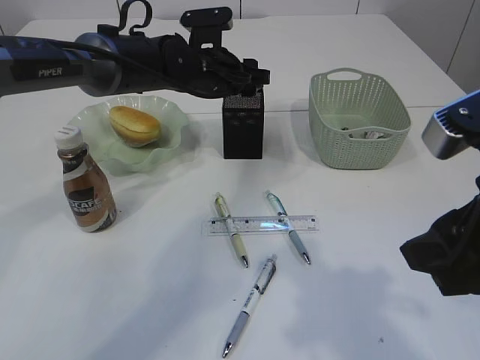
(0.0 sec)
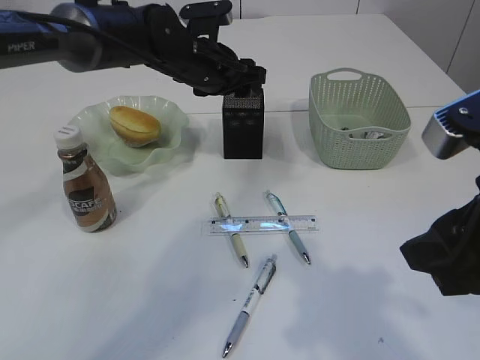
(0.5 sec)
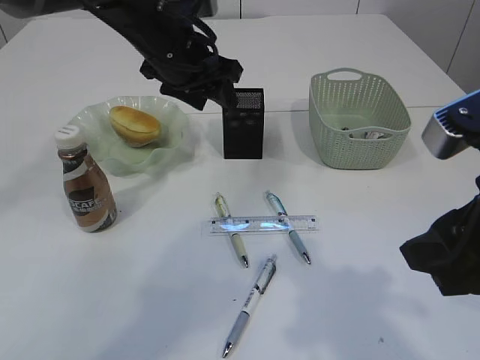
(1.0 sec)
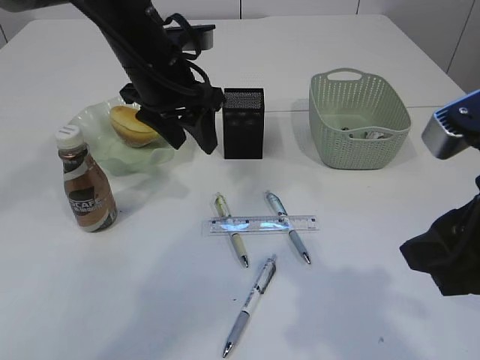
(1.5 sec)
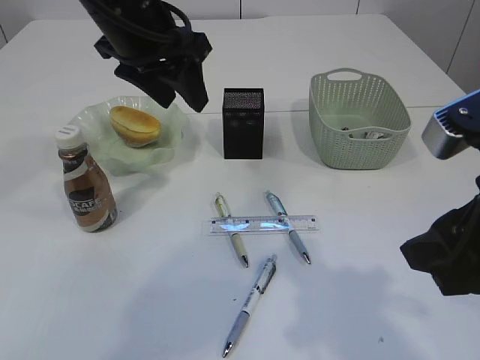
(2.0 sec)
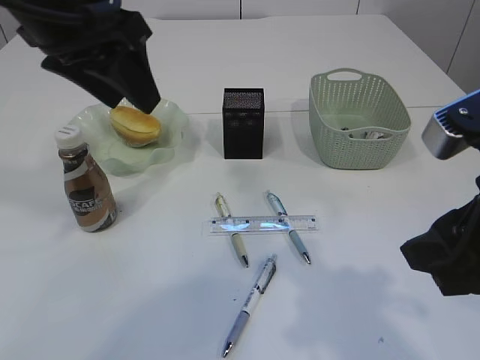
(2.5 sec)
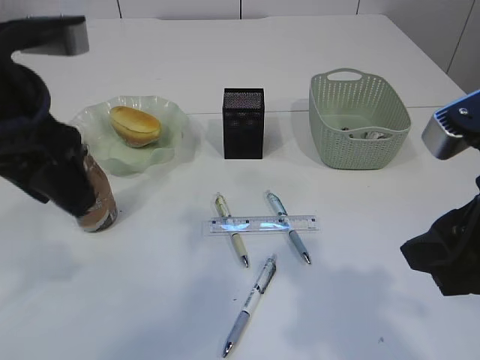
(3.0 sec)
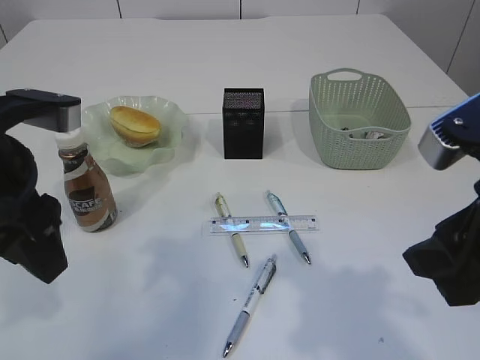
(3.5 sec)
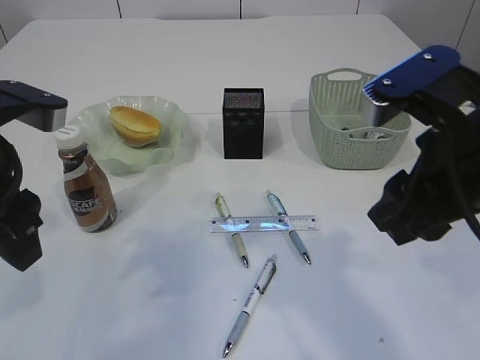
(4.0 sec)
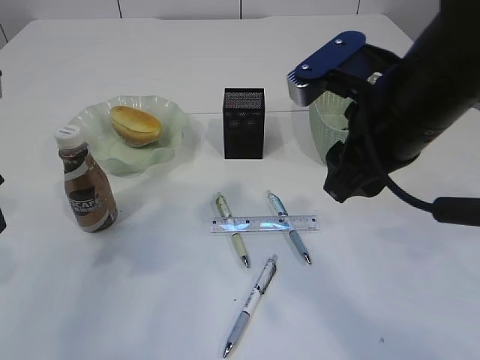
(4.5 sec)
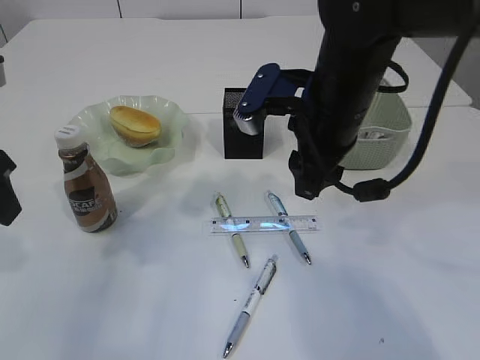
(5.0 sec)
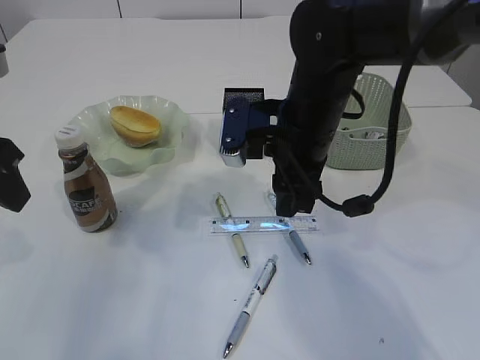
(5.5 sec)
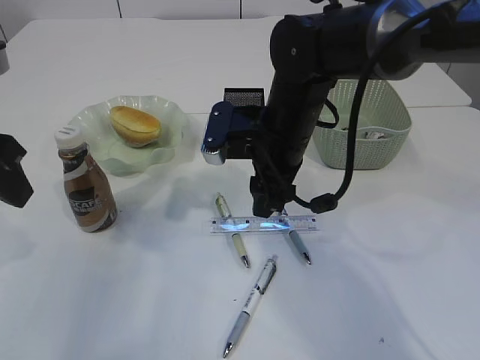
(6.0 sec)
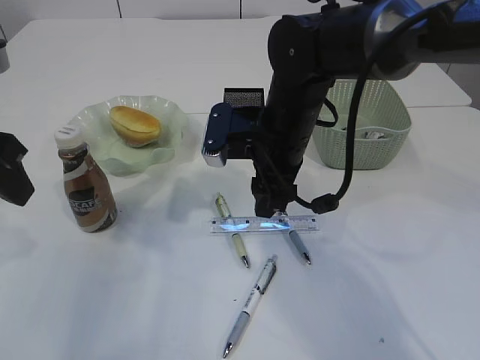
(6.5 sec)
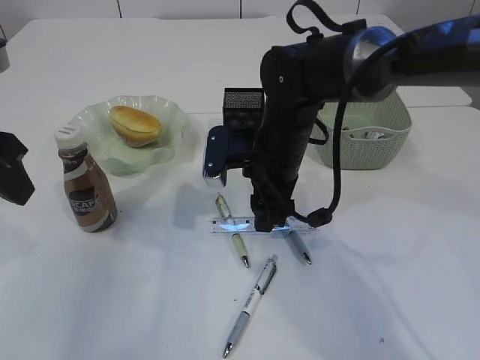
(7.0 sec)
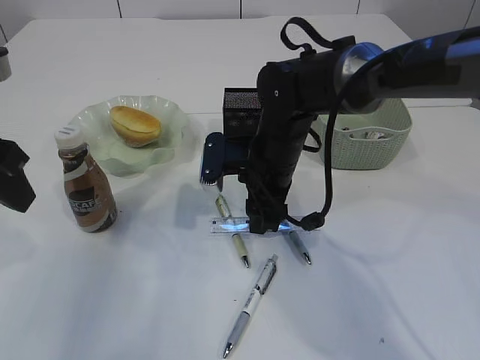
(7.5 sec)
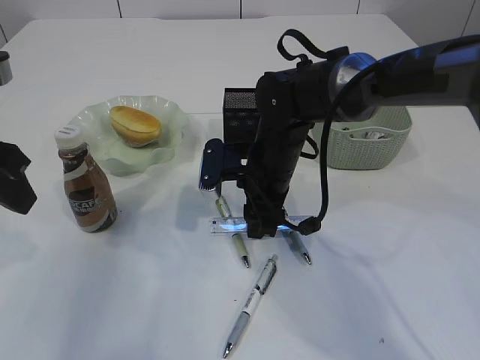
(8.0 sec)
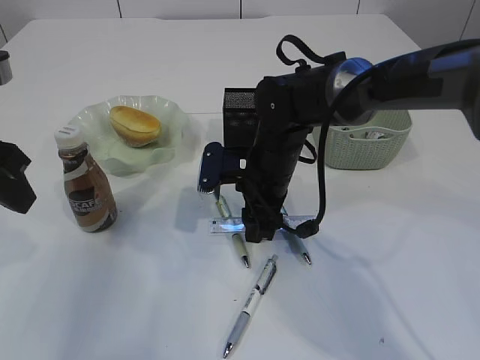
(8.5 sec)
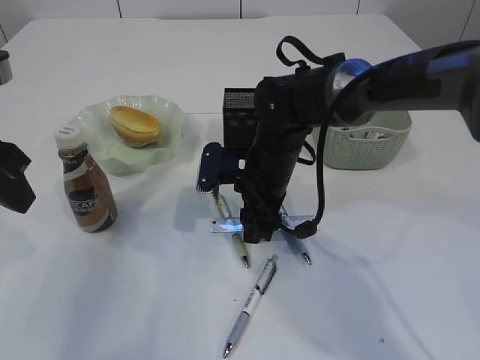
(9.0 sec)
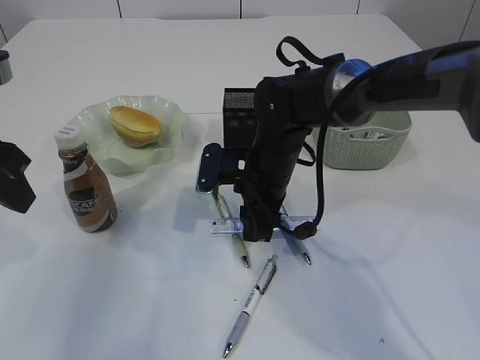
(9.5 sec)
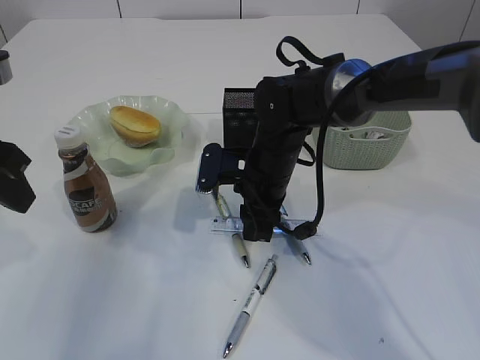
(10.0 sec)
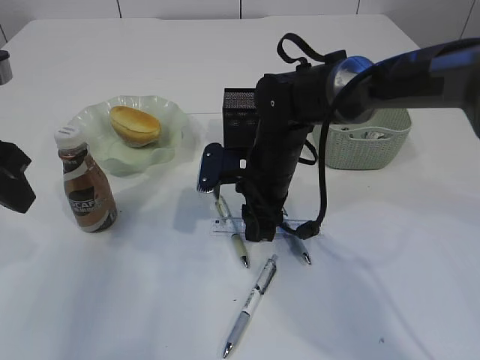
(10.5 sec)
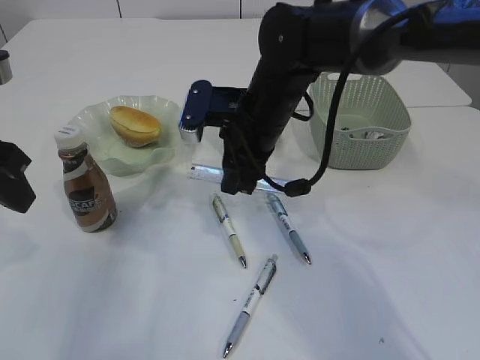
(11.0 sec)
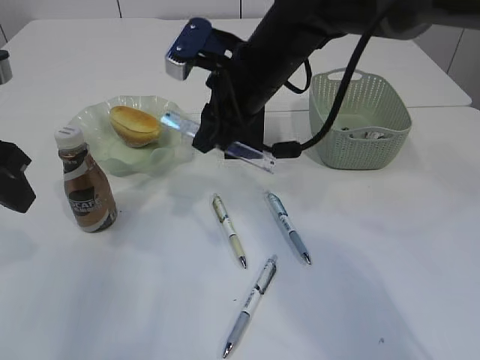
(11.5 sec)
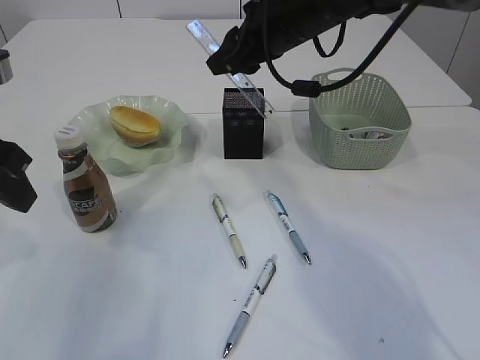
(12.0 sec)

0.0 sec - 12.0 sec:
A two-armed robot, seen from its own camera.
Step, 0.5 sec - 11.0 sec: pick up the ruler.
0.0 sec - 2.0 sec: The left gripper heads upward, backward and to the left, covering roughly 20 cm.
2.0 sec - 4.0 sec: The right gripper changes place by some 5 cm. The left gripper is displaced backward and to the left by about 15 cm.
4.0 sec - 6.0 sec: The right gripper shifts roughly 20 cm forward, to the left and downward; the left gripper moves approximately 5 cm.
6.0 sec - 8.0 sec: The right gripper goes about 5 cm downward.
8.0 sec - 10.0 sec: Both grippers stay about where they are.
10.0 sec - 12.0 sec: The right gripper shifts some 15 cm upward.

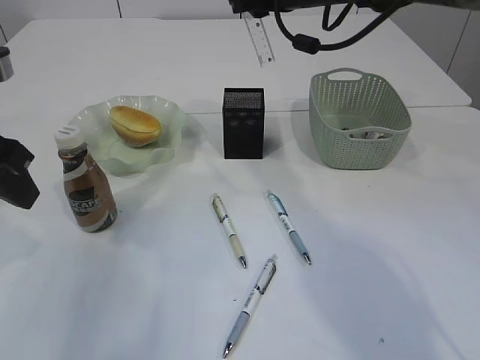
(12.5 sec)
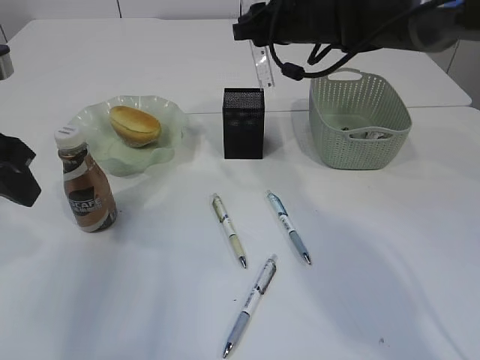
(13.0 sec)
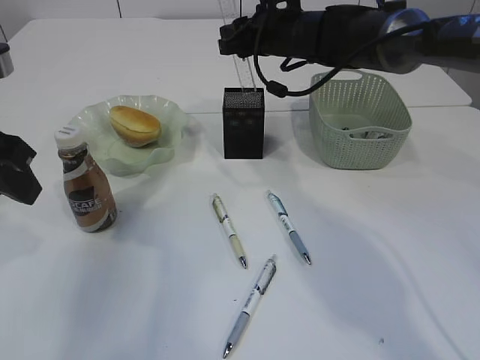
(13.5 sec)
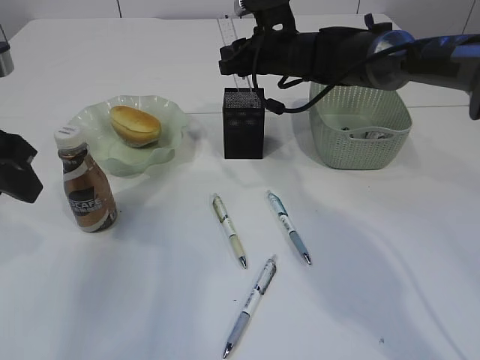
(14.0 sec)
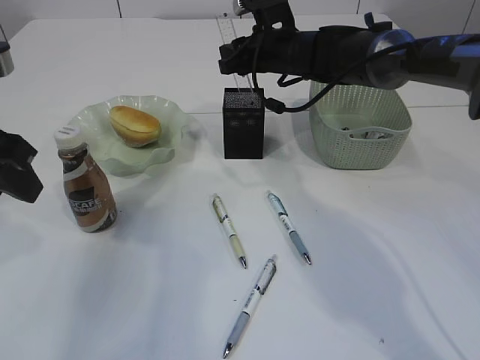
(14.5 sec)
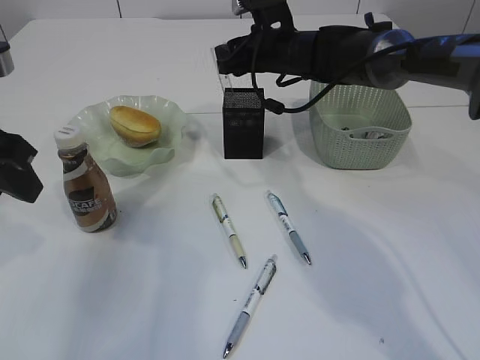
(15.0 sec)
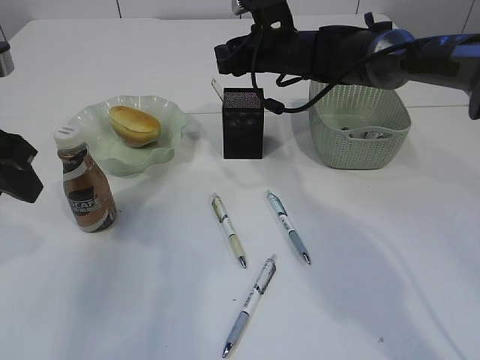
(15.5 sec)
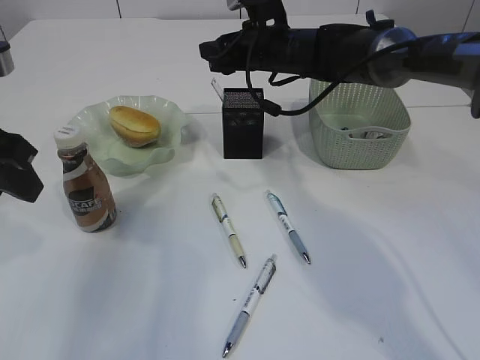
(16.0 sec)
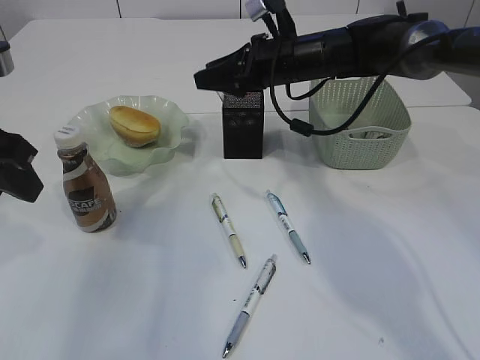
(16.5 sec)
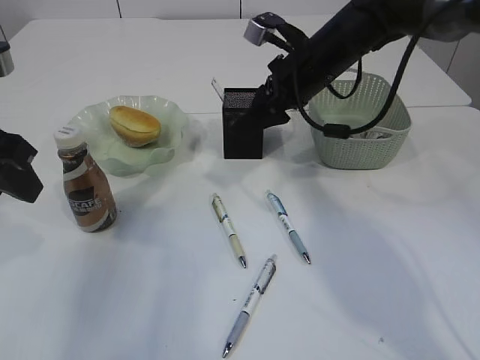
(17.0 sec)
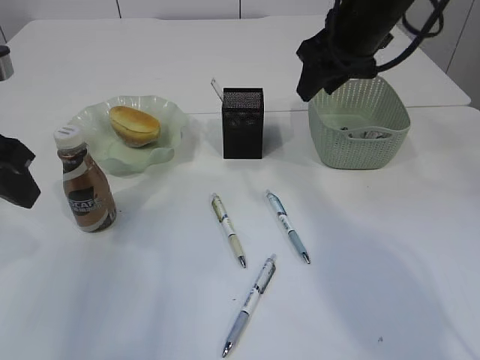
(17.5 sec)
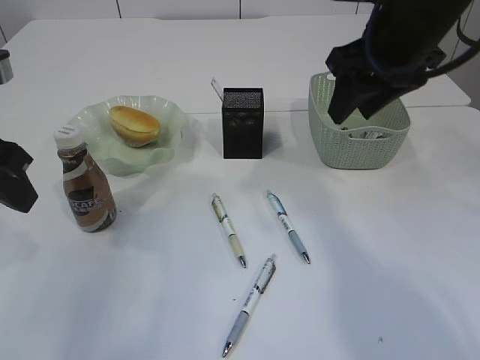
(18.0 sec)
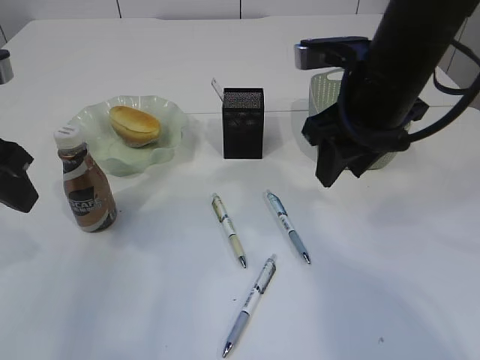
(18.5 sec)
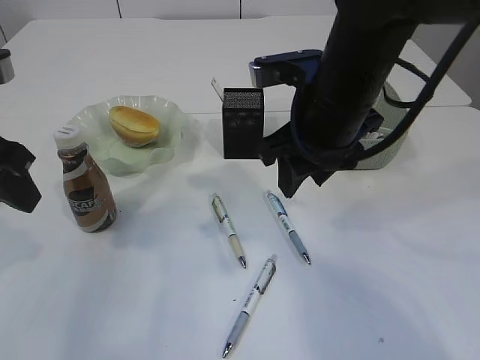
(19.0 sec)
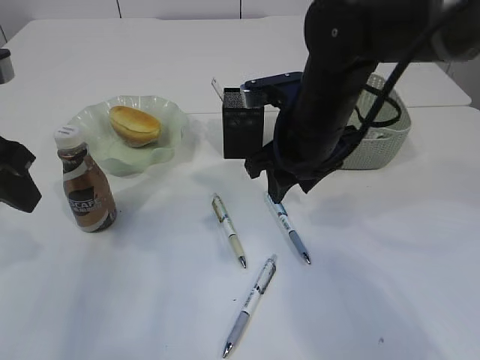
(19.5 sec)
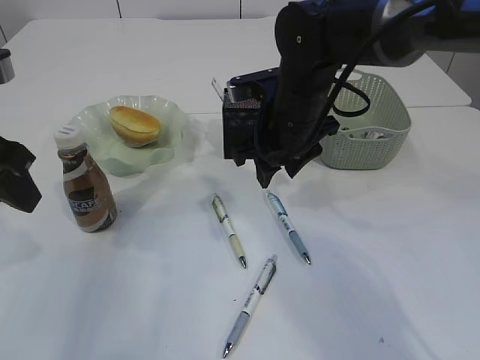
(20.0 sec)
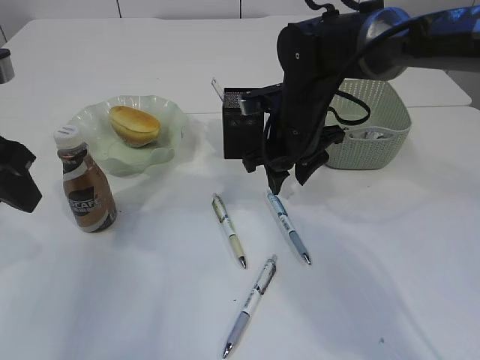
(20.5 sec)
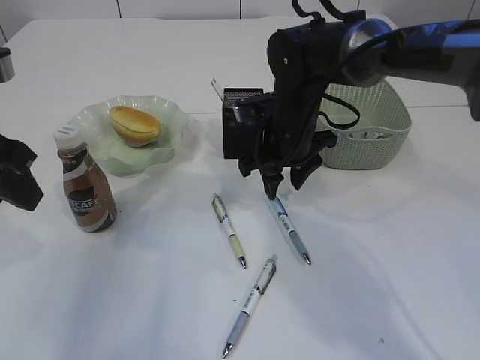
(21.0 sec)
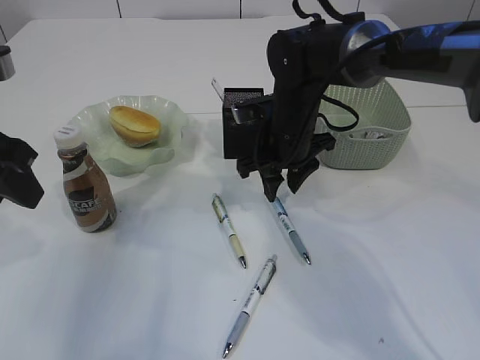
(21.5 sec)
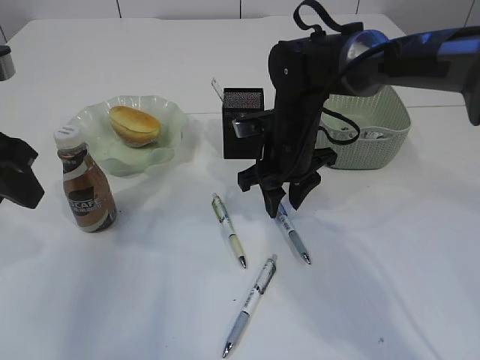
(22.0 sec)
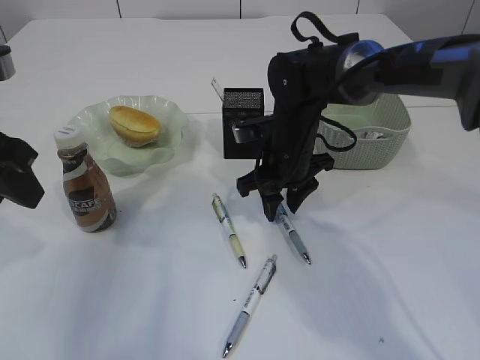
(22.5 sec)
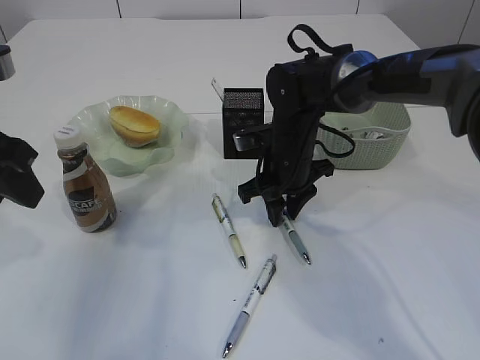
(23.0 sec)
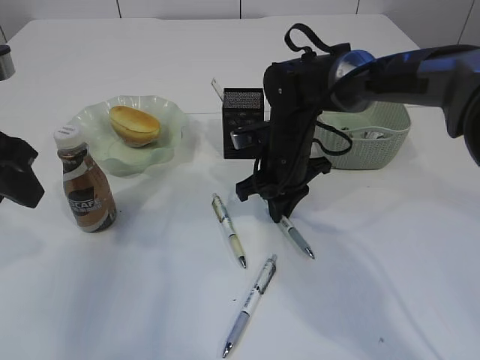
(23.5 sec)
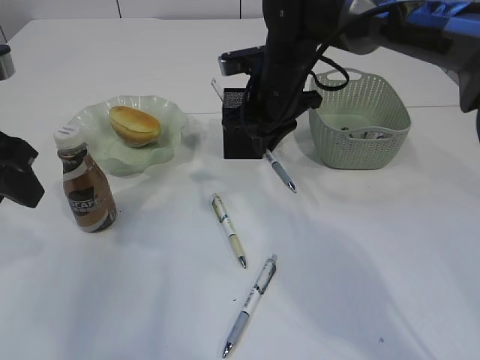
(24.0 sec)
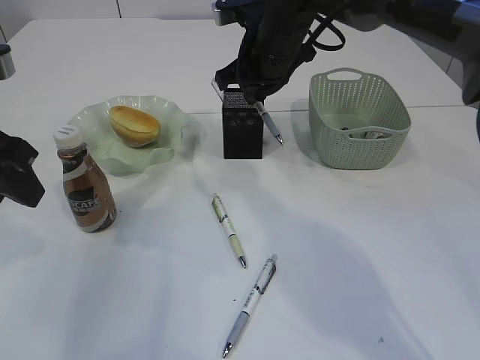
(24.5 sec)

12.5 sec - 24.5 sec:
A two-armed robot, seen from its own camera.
Step, 12.5 sec - 16.0 sec: Place the ruler into the pen holder.
Step, 16.5 sec - 23.5 sec: Pick up the pen with right arm.
12.5 sec - 14.5 sec: The right gripper goes some 10 cm downward and forward.
16.5 sec - 18.5 sec: The right gripper shifts about 15 cm backward.
18.5 sec - 20.5 sec: The right gripper heads downward, forward and to the left, covering roughly 15 cm.
20.5 sec - 22.5 sec: The grippers make only small movements.
22.5 sec - 24.5 sec: The right gripper goes about 15 cm upward and forward, and closes.

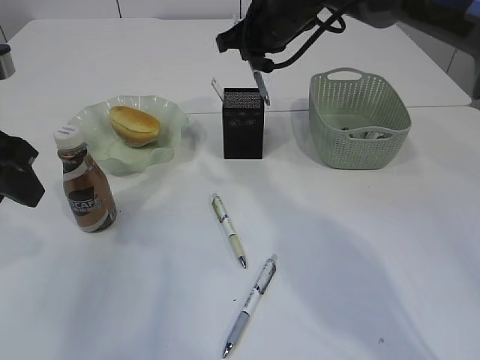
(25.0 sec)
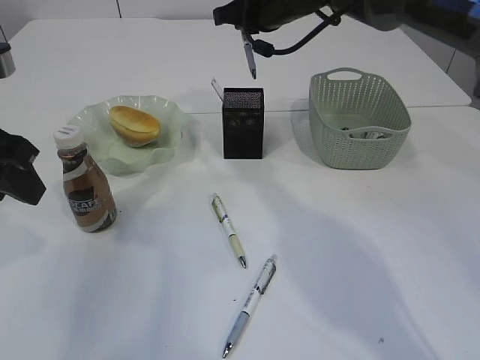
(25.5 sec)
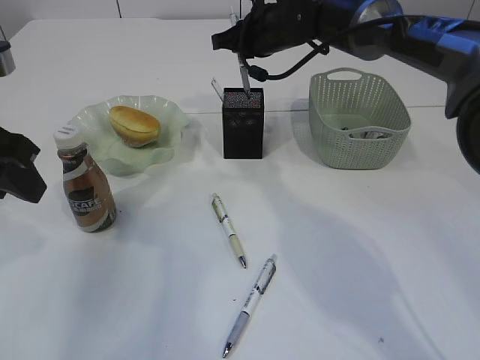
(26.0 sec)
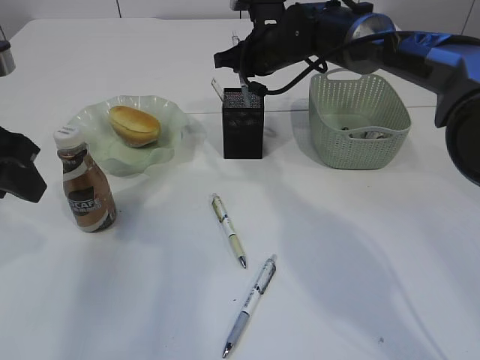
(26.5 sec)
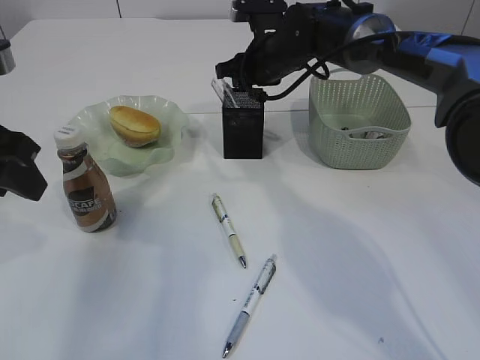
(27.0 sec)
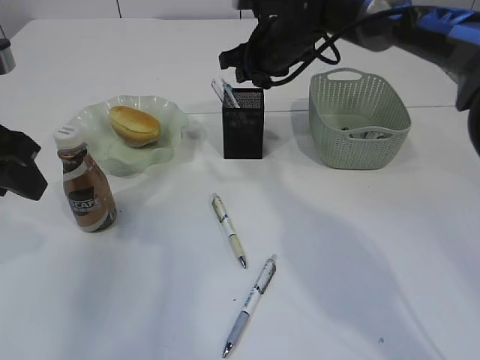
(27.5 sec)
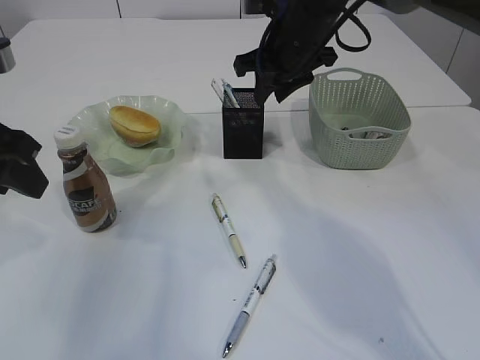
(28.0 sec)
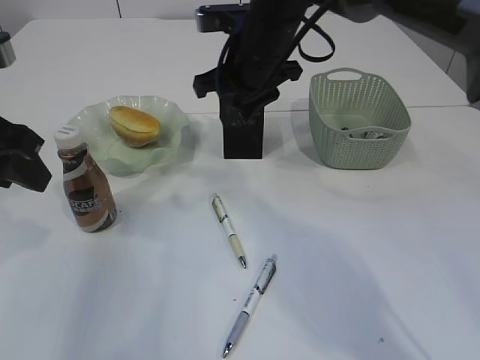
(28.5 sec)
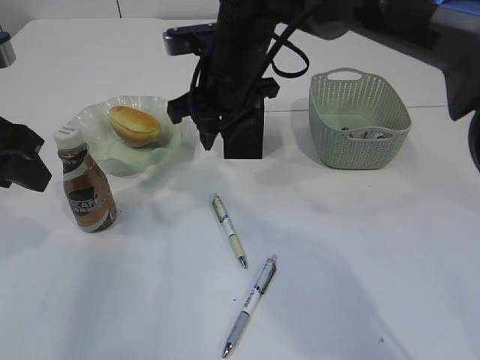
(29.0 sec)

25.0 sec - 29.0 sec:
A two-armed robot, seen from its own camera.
Step, 25.0 sec - 27.5 sec: Place the pen into the pen holder.
25.0 sec - 27.0 sec: The right gripper moves downward, some 5 cm, and opens.
27.0 sec - 29.0 sec: The right gripper moves backward and to the left, roughly 15 cm.
